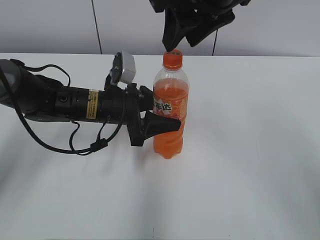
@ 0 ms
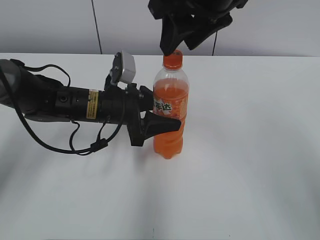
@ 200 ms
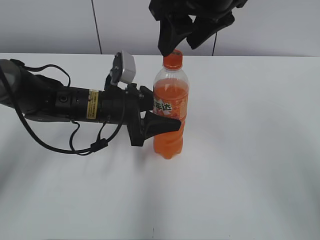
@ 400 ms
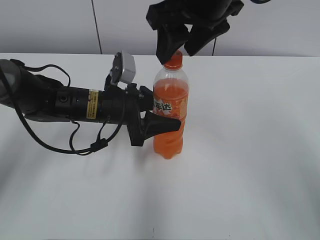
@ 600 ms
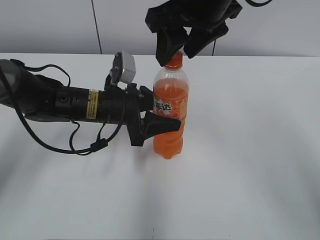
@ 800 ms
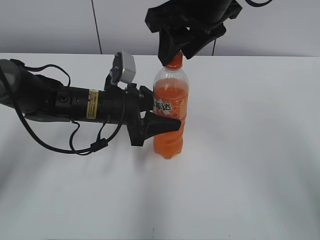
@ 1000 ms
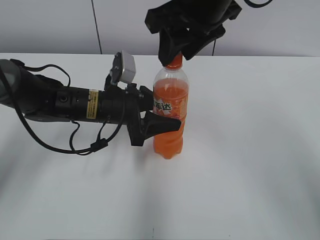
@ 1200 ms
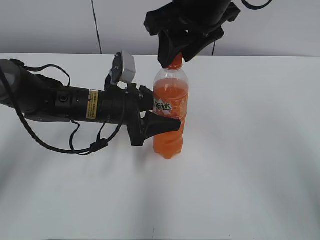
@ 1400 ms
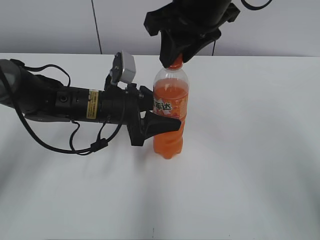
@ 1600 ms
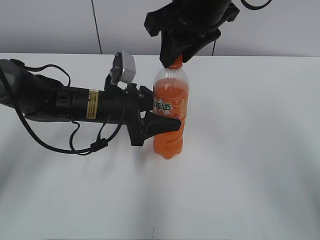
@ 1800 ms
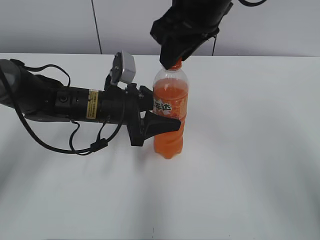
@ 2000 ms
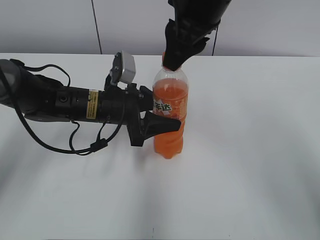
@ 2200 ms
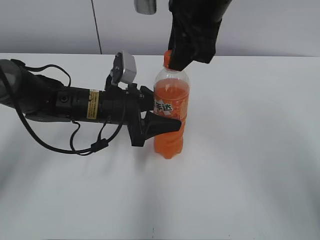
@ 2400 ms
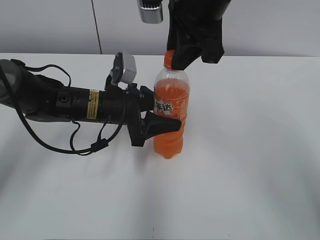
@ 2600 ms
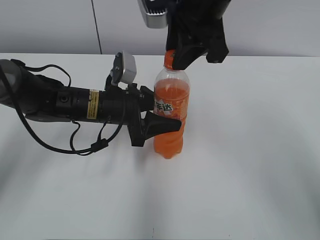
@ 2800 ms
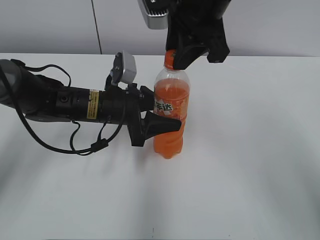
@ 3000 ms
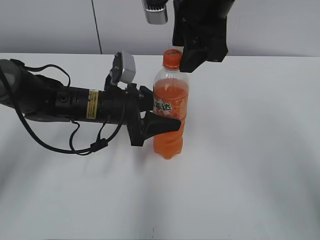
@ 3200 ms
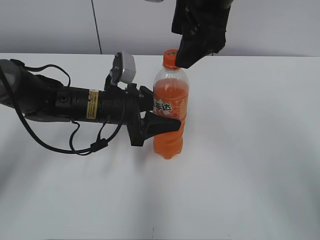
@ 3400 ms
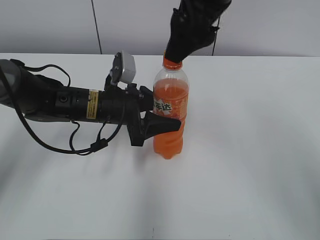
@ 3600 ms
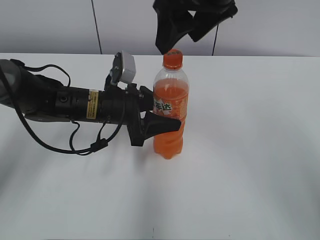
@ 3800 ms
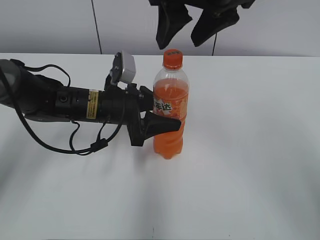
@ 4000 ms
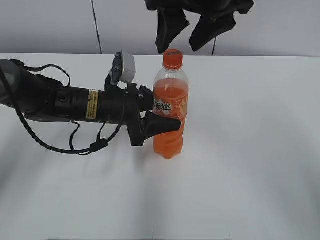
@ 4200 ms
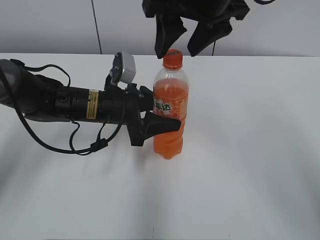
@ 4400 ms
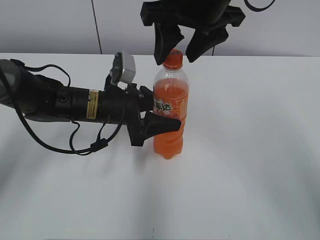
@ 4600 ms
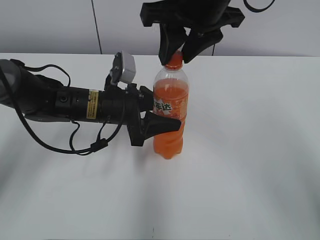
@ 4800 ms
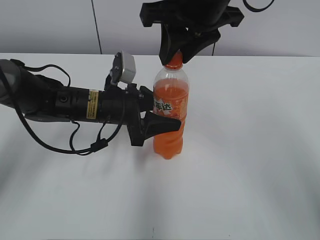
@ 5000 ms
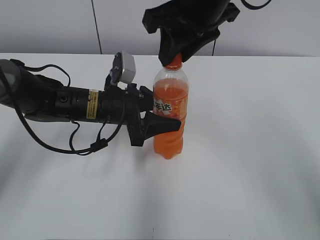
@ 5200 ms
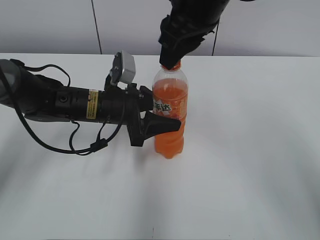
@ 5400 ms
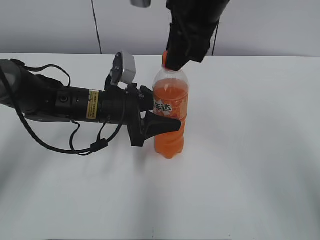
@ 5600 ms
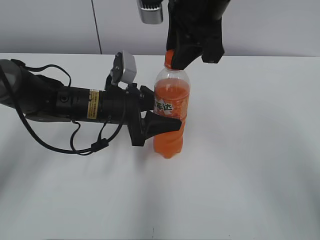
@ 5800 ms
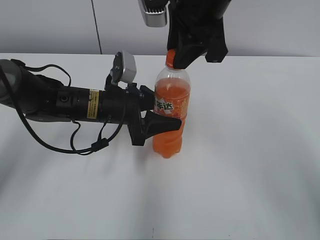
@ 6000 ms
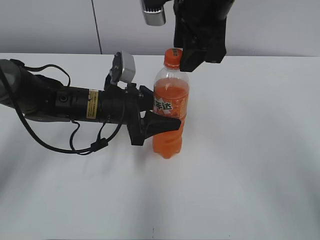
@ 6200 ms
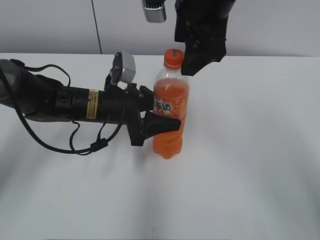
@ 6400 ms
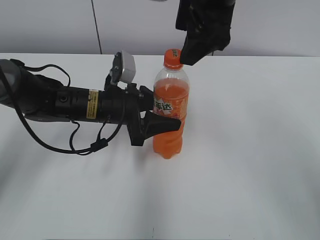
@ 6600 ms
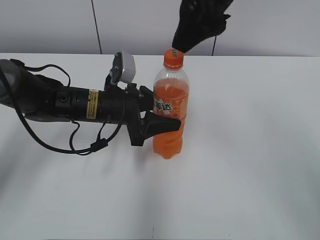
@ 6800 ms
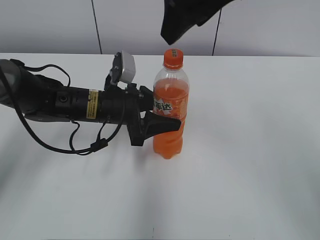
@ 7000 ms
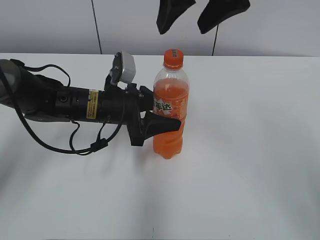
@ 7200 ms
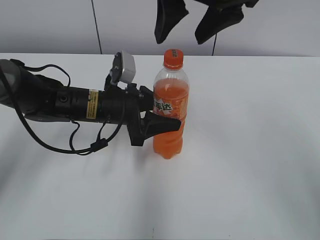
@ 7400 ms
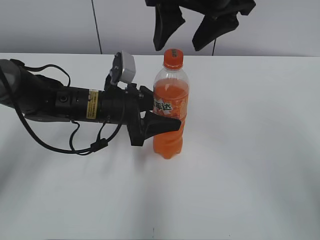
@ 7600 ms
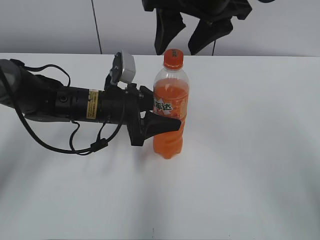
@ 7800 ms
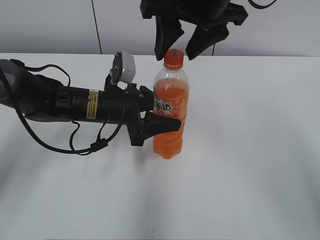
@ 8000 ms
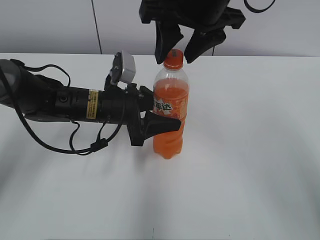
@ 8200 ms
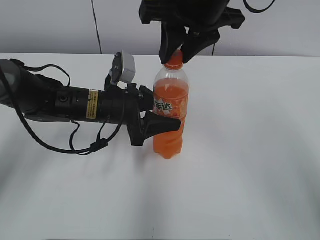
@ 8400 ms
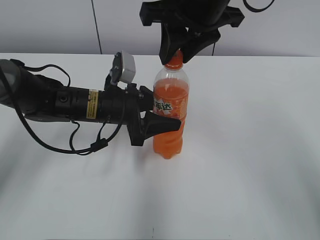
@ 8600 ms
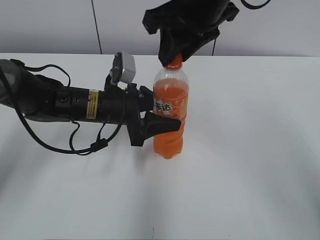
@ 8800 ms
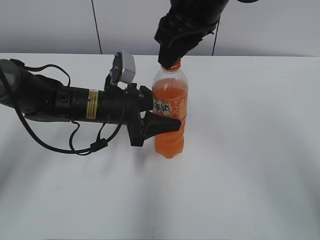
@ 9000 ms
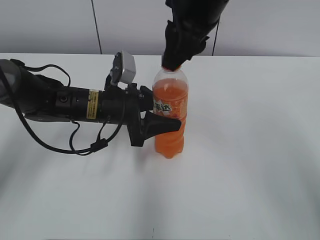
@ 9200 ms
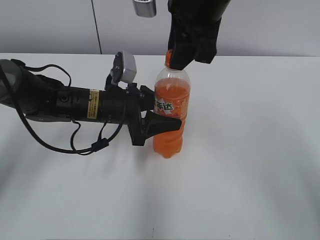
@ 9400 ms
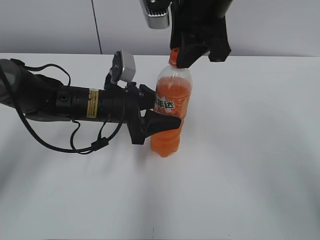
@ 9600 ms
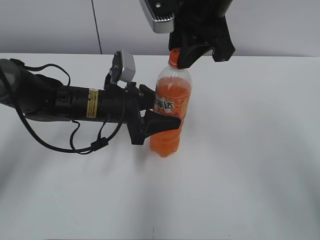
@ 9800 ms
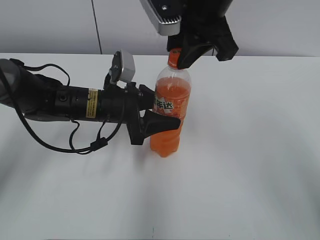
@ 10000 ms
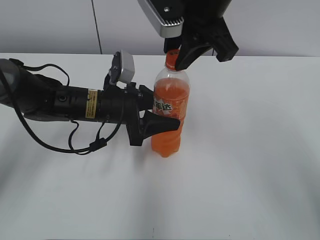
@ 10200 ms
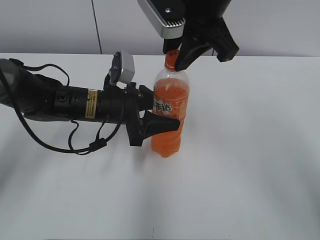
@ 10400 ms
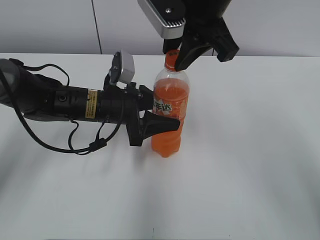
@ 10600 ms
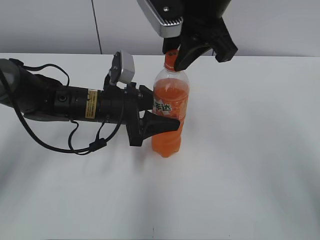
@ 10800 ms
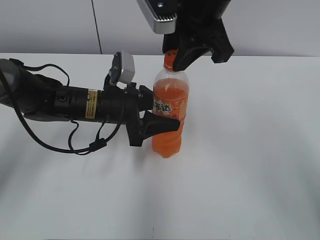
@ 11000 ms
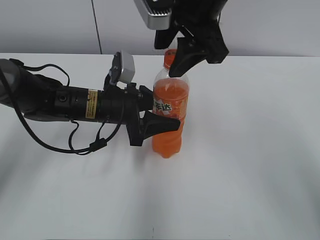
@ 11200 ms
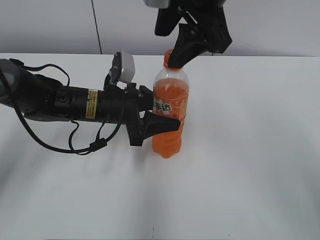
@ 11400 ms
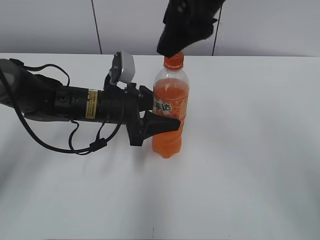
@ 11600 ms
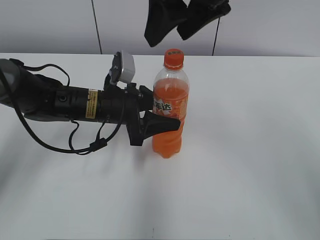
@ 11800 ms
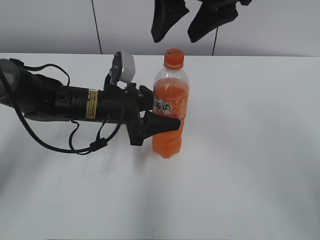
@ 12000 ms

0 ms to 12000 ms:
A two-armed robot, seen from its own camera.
0 ms to 1600 ms: The grippers stay close to where they were, moving slightly.
3000 ms to 4400 ms: The right gripper opens its fingers.
4400 ms to 6000 ms: The right gripper closes its fingers.
6000 ms to 7600 ms: The right gripper opens up.
7600 ms to 9000 ms: The right gripper closes.
10400 ms to 12000 ms: The right gripper opens.

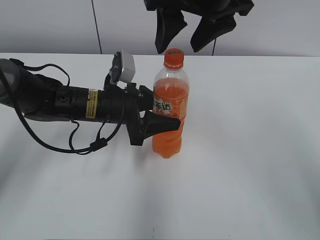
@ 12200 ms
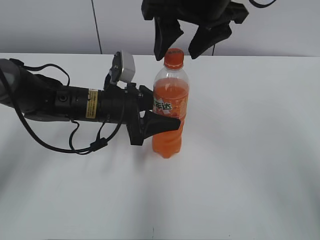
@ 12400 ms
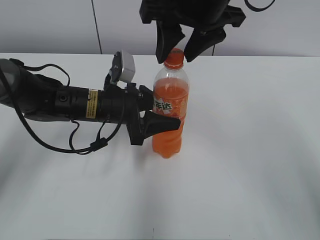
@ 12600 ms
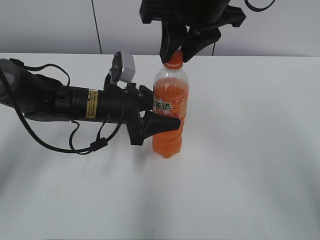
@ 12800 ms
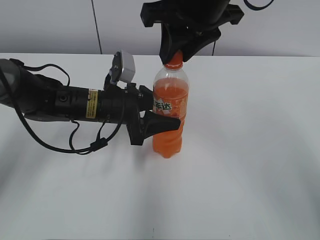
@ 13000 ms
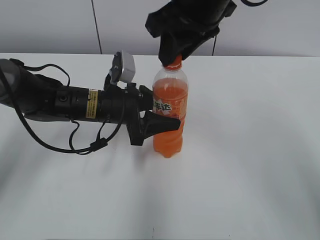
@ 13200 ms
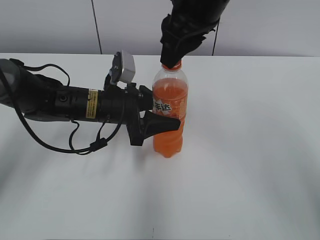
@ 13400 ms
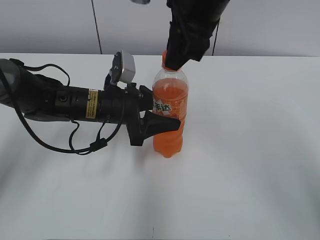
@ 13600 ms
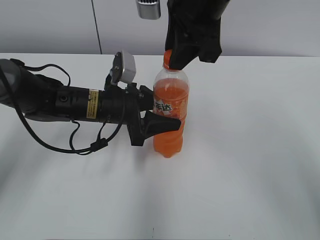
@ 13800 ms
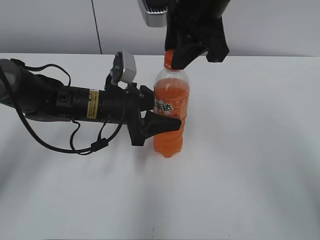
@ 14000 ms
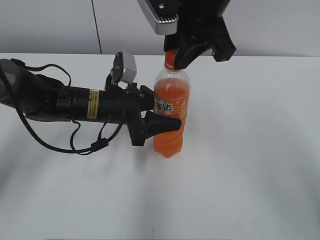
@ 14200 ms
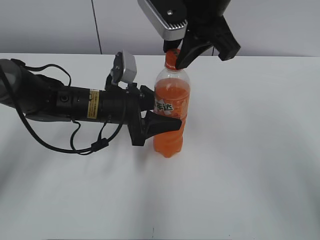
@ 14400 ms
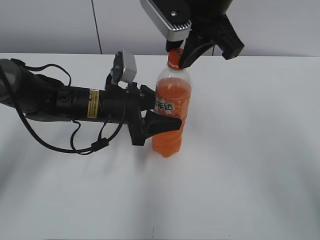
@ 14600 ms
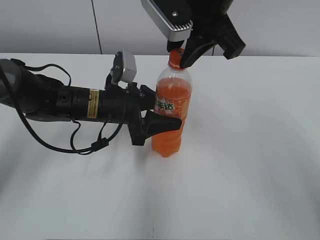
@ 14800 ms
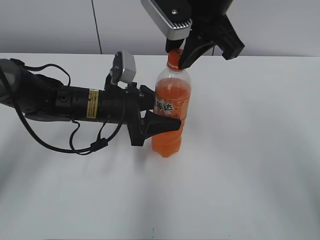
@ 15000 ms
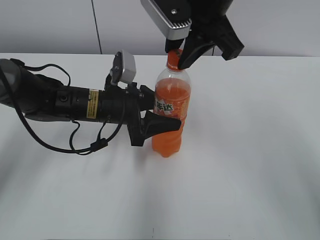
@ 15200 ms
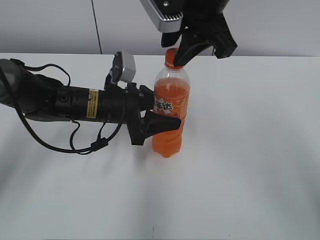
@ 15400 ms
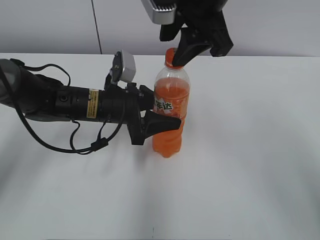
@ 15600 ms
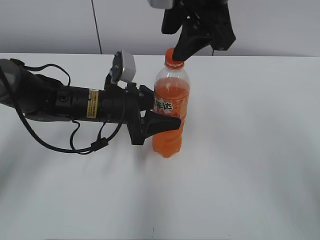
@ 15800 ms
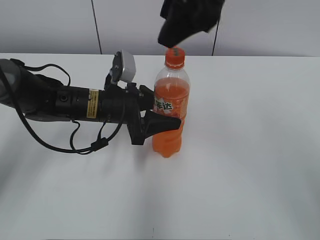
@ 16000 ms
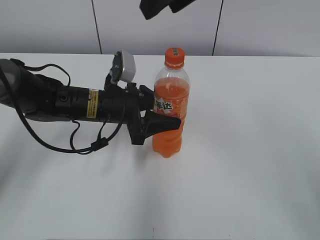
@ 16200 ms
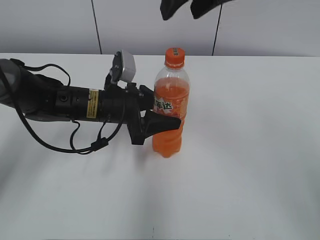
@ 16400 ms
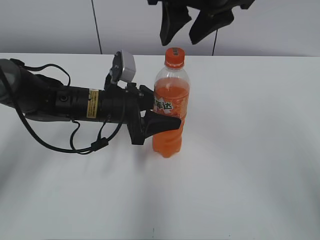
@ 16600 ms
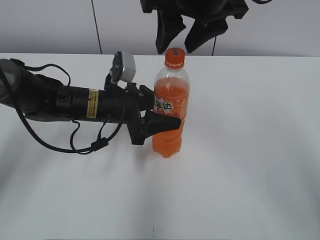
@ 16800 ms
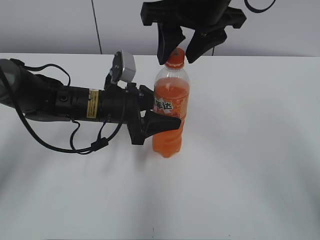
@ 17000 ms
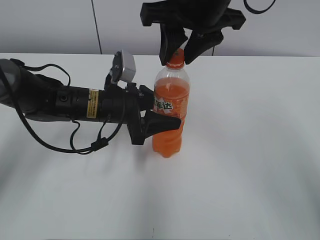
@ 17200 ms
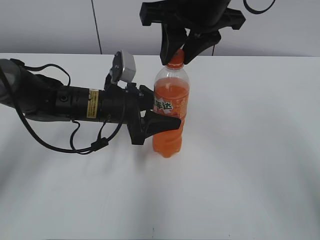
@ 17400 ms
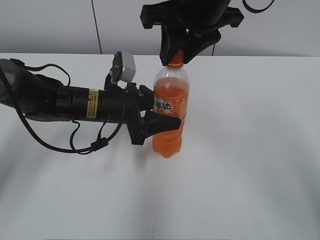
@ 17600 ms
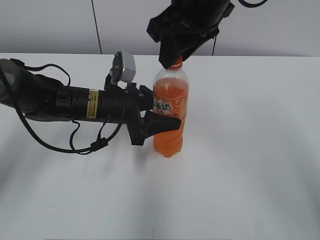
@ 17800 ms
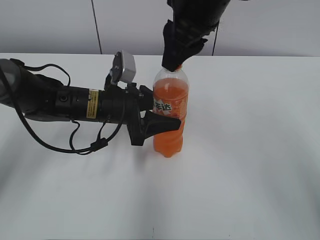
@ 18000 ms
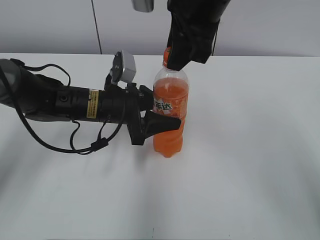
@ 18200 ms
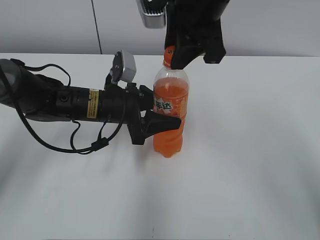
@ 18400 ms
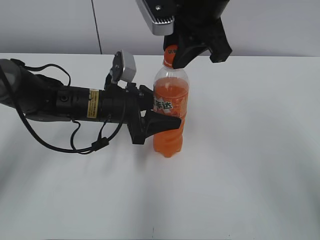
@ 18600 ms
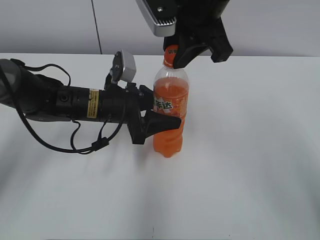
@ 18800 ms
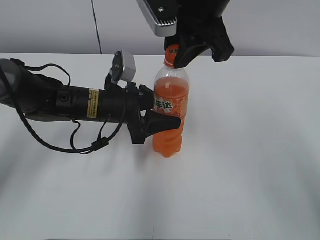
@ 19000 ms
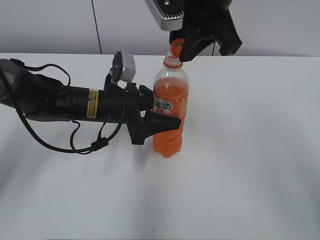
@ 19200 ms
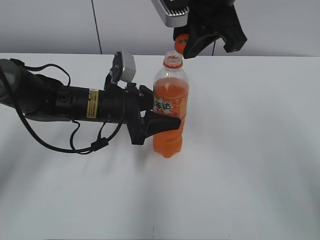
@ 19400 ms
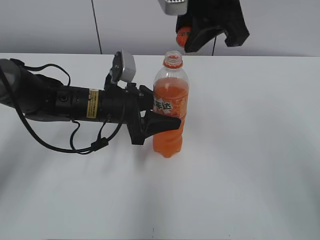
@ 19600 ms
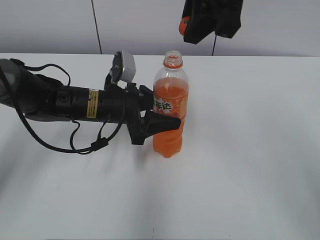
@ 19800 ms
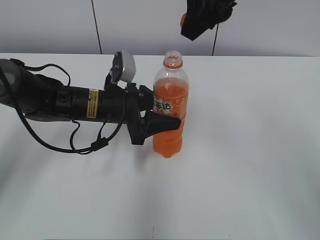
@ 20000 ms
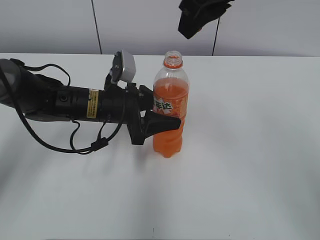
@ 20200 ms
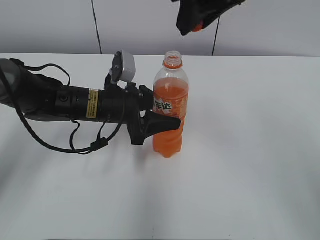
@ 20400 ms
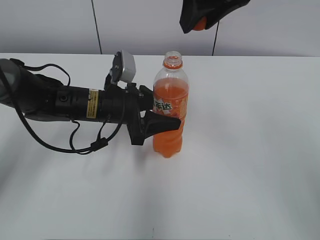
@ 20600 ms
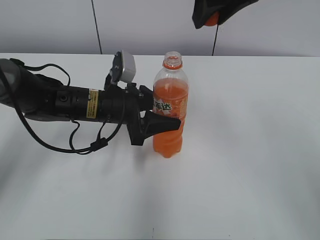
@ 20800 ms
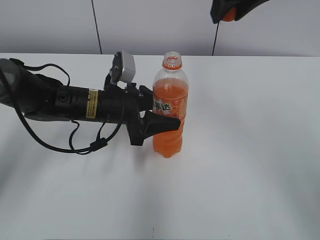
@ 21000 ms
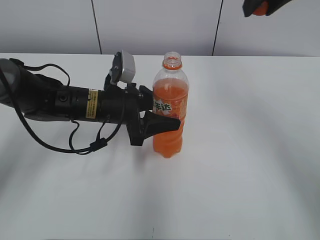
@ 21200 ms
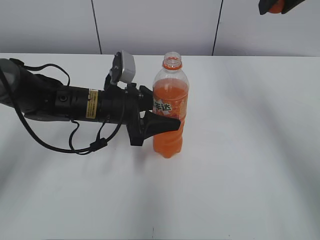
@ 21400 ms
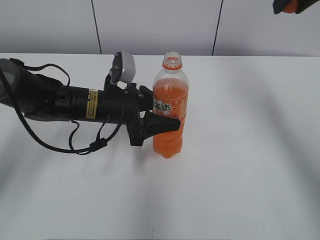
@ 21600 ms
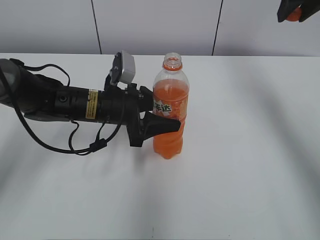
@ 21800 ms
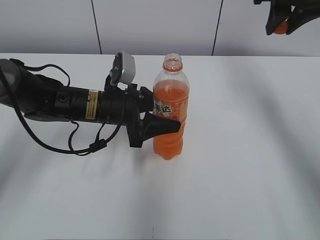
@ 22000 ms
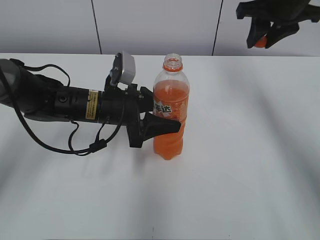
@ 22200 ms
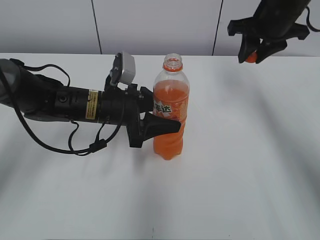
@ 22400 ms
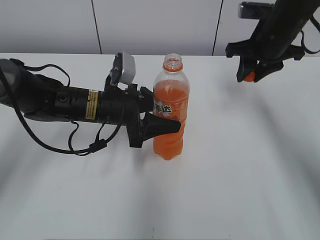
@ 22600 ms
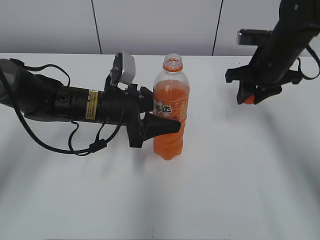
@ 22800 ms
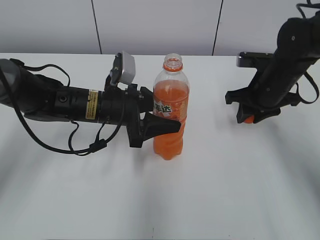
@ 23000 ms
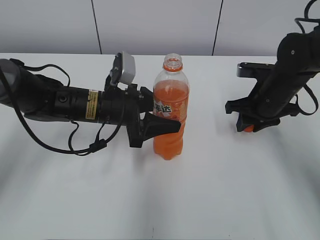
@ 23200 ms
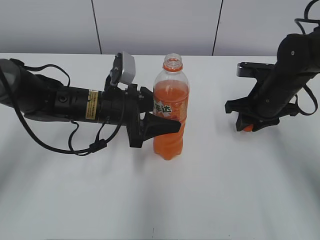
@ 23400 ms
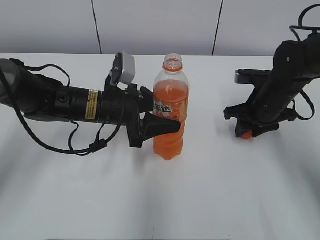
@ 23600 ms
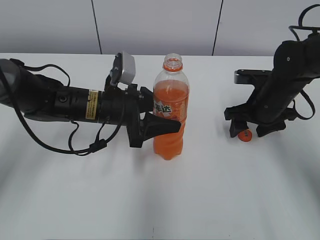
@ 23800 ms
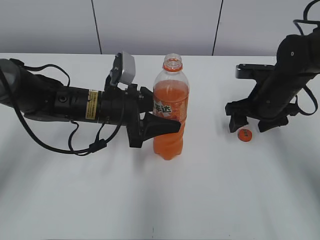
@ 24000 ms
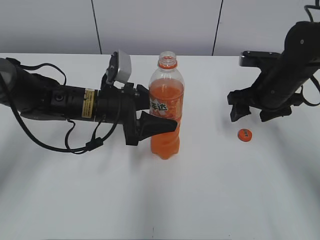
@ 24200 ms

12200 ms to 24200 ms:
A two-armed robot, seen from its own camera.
Step, 19200 ms to 23800 ms: Place the bottle cap on the right.
Step, 24000 ms to 24200 ms: Place the Mirinda with the left hand.
12200 ms to 13800 ms: The right gripper closes.
15200 ms to 16600 ms: The right gripper opens up.
16600 ms to 18200 ms: The right gripper closes its fingers.
19800 ms to 21200 ms: The right gripper heads to the right, covering about 10 cm.
21200 ms to 22600 ms: The right gripper shifts approximately 15 cm downward and forward.
22600 ms to 24200 ms: The right gripper travels downward and backward by about 10 cm, and opens.
